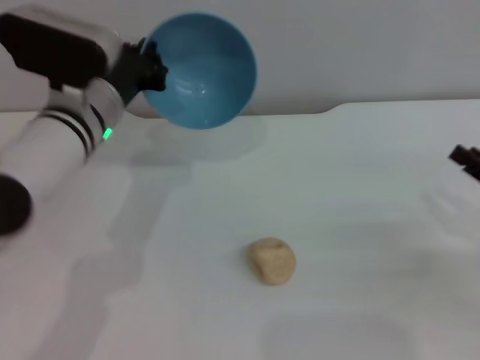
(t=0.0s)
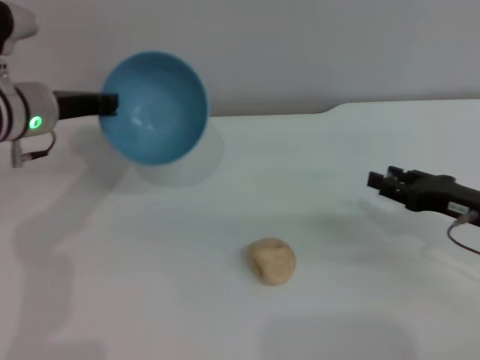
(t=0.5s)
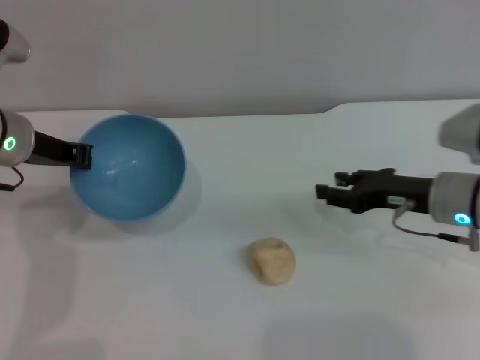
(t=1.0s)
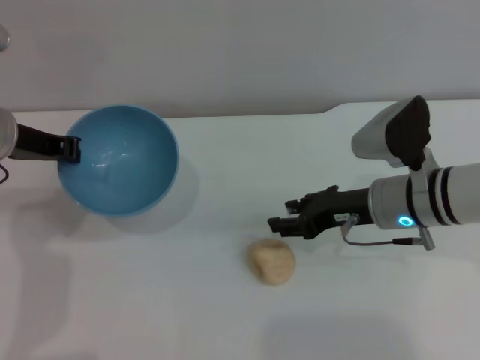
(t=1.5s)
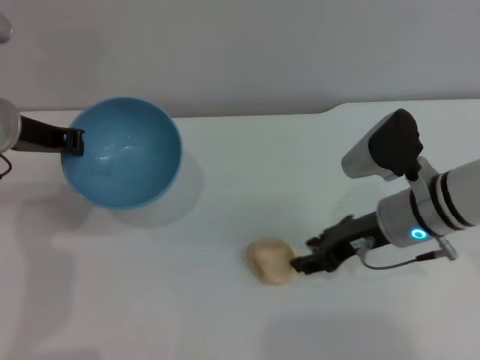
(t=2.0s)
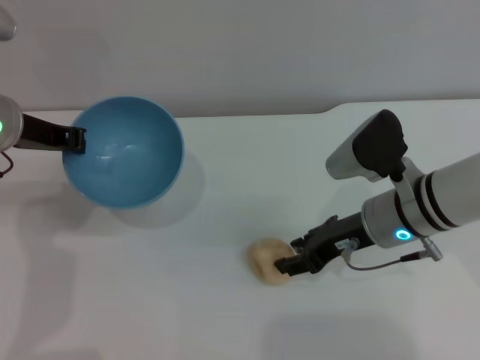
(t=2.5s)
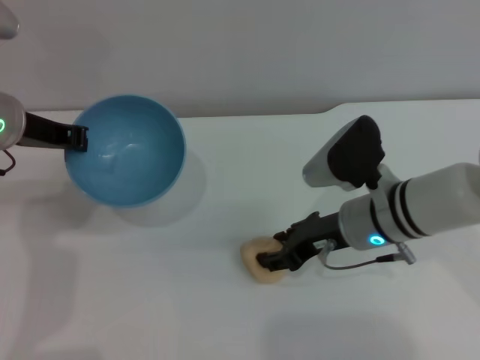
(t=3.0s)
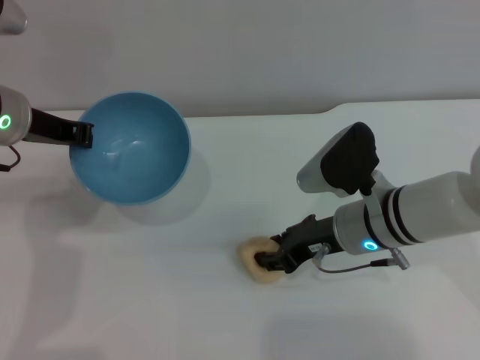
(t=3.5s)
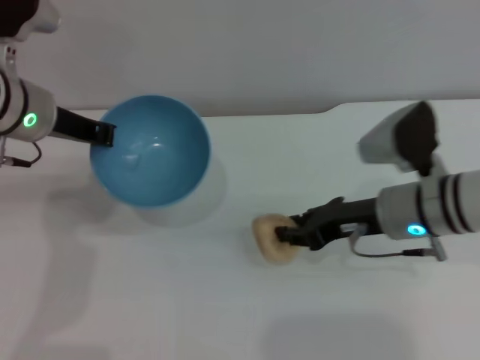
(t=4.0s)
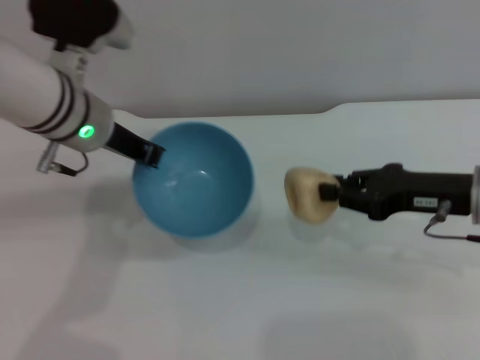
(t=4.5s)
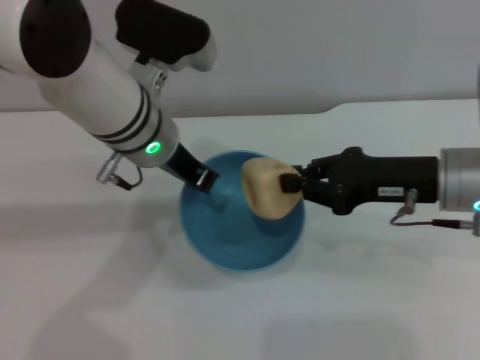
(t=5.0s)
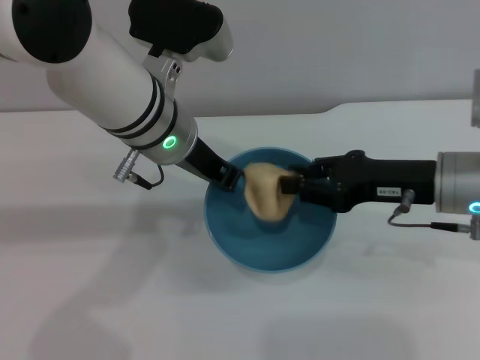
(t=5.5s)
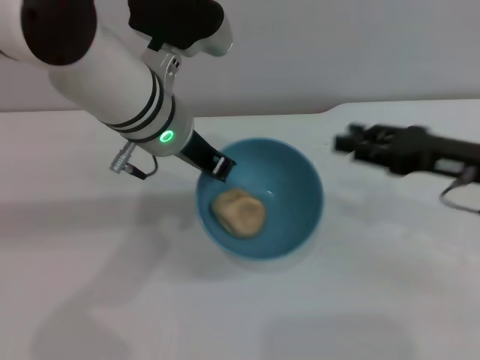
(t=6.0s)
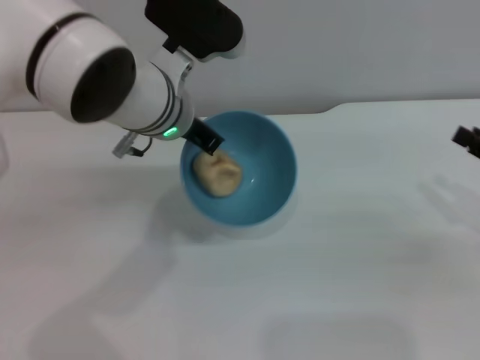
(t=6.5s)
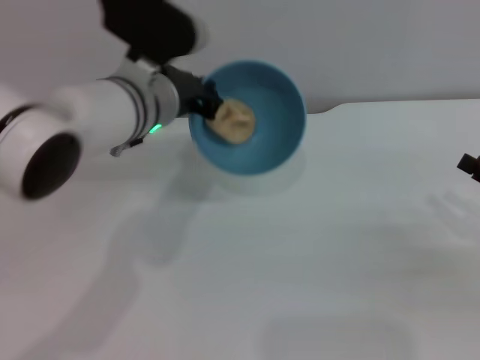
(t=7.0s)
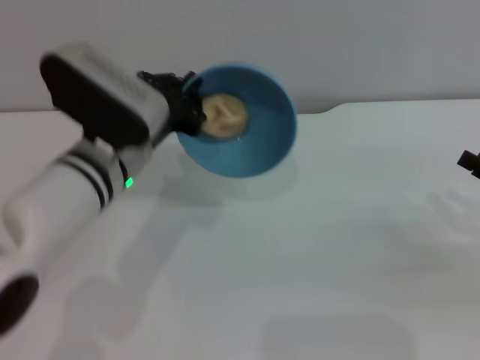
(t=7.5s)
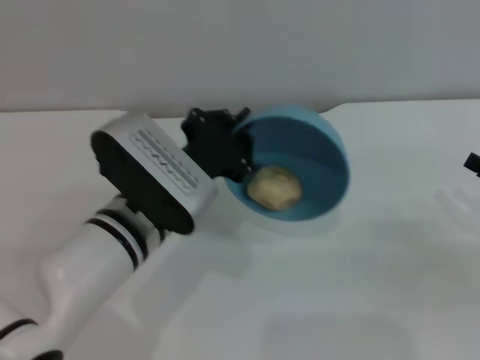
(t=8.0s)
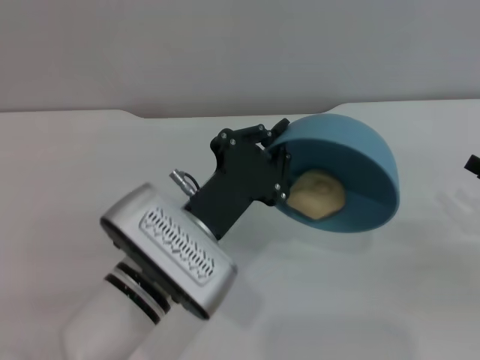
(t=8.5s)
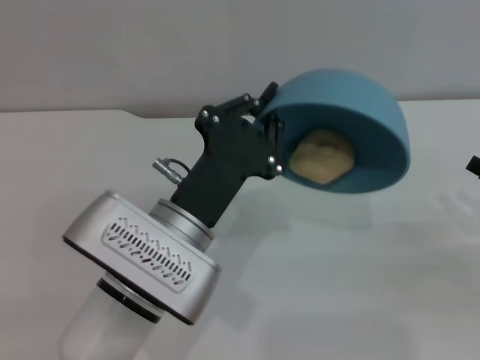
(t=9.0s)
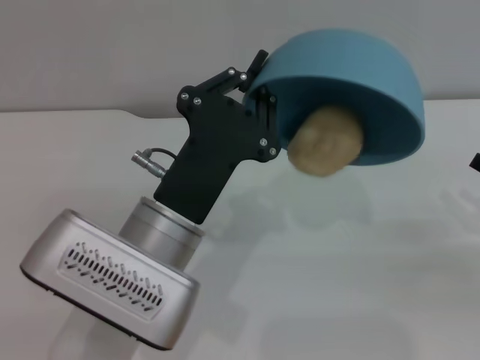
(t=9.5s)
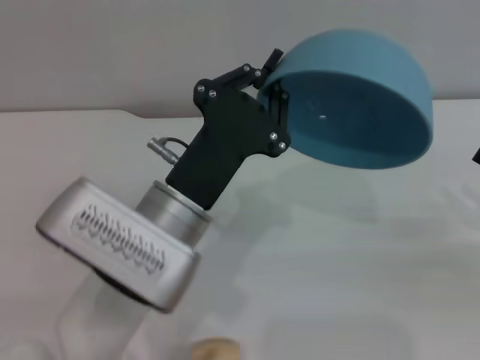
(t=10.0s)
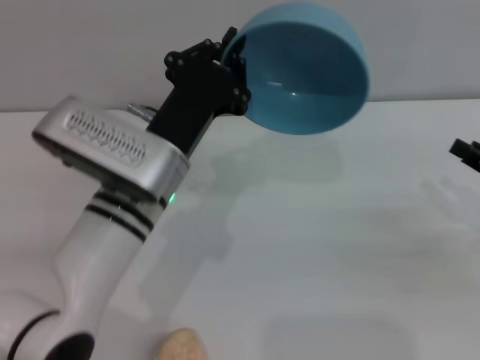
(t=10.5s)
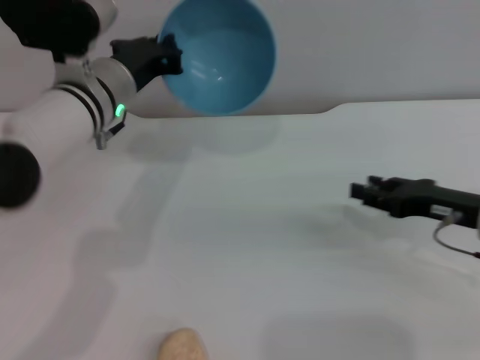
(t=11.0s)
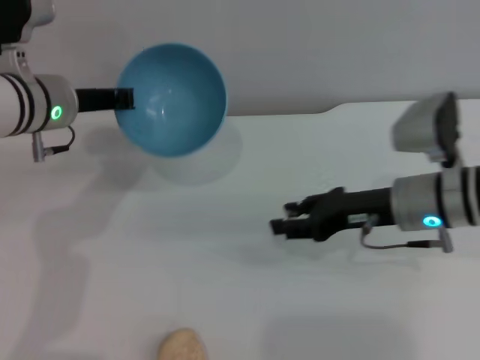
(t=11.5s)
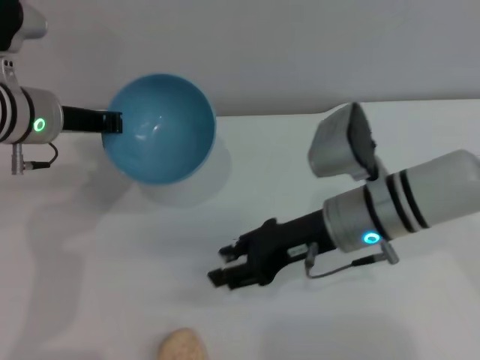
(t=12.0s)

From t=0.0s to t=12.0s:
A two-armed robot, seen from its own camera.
Task of the whole recording: put the egg yolk pastry into the blue bowl and pour it out repeatedly.
Step, from t=0.0s to t=4.5s: Pick up the egg yolk pastry with the right gripper.
Step, from t=5.0s to t=5.5s: Place the egg yolk pastry into the bowl.
Step, from t=6.0s to t=10.0s: Pour the egg yolk pastry out of bowl.
From t=0.0s to t=2.0s: The right gripper heads to the left and forward, covering roughly 20 cm. The left gripper shifts some 10 cm to the left.
From t=2.0s to t=4.0s: There are only small adjustments of the grippers.
From t=4.0s to t=6.0s: The right gripper goes some 10 cm to the right and upward, and closes, then reopens, while the left gripper moves to the right, about 15 cm.
From t=6.0s to t=8.0s: The left gripper goes some 10 cm downward and backward. The right gripper travels to the right, downward and backward by some 15 cm.
From t=10.0s to t=12.0s: The right gripper is displaced to the left by approximately 25 cm. Meanwhile the left gripper is displaced forward and to the left by some 20 cm.

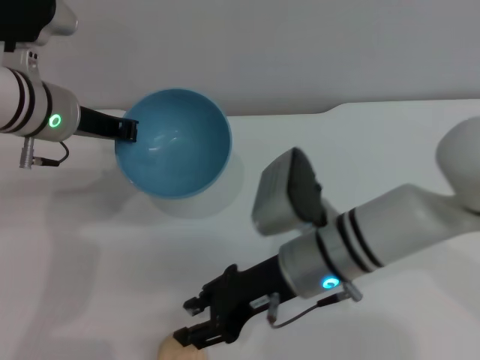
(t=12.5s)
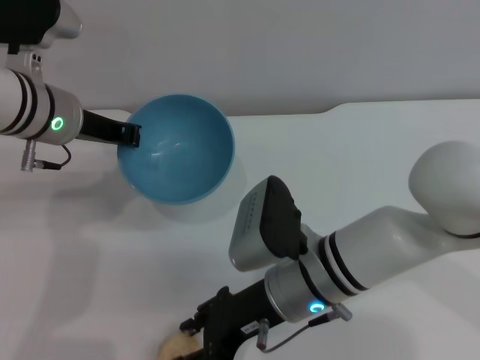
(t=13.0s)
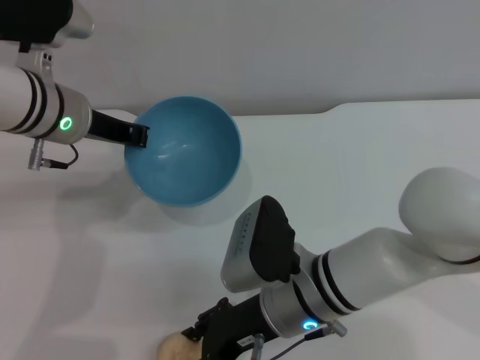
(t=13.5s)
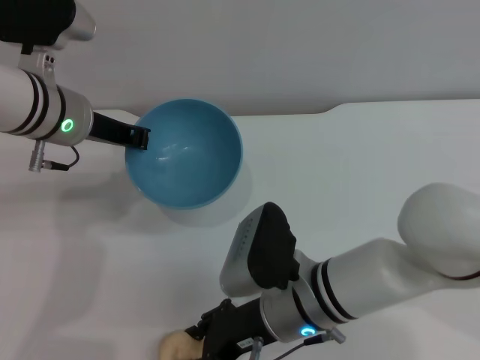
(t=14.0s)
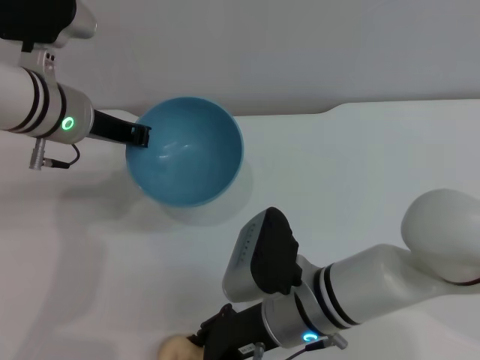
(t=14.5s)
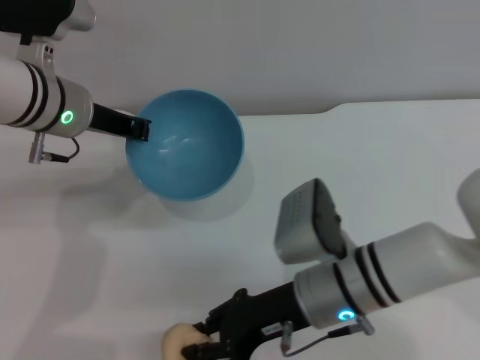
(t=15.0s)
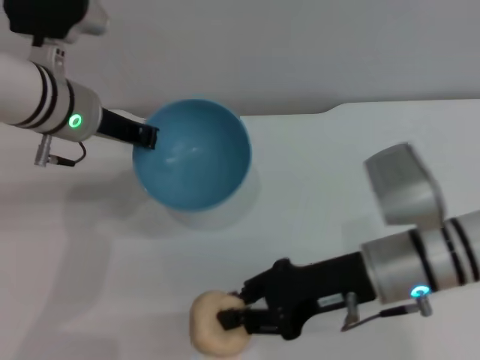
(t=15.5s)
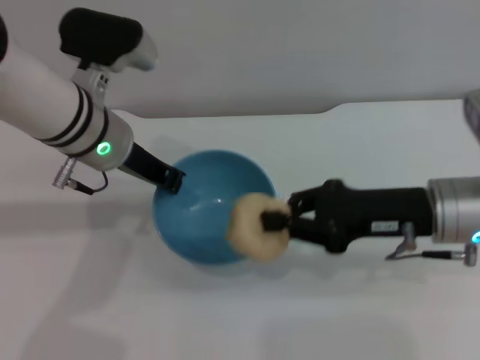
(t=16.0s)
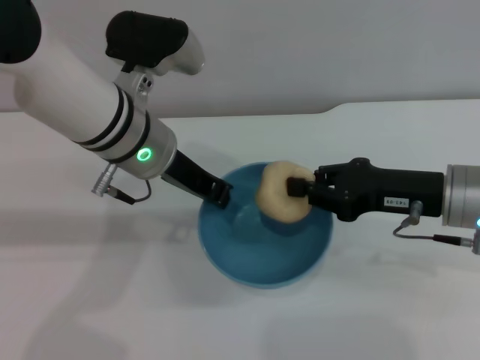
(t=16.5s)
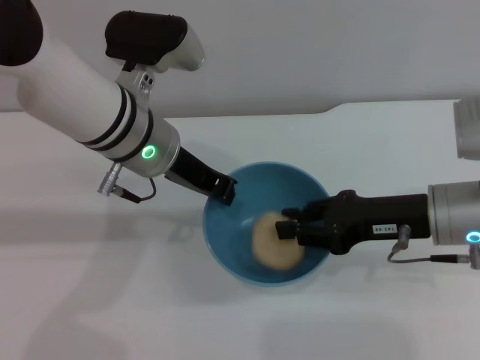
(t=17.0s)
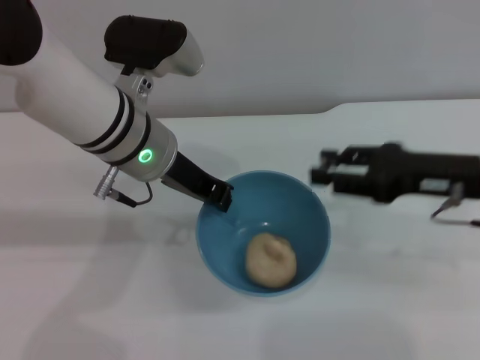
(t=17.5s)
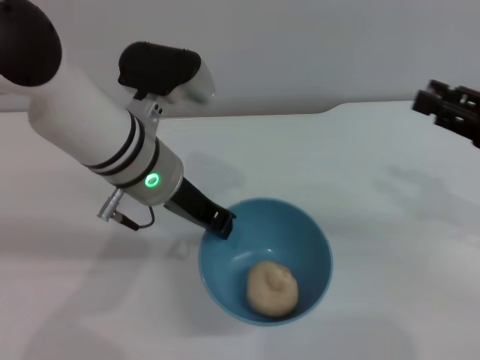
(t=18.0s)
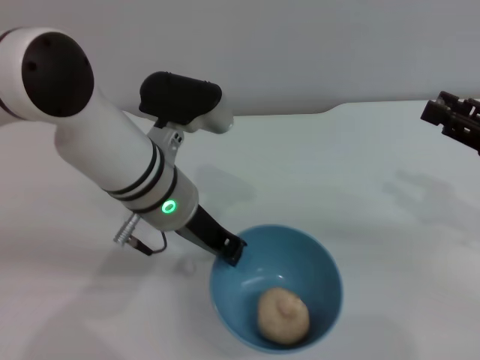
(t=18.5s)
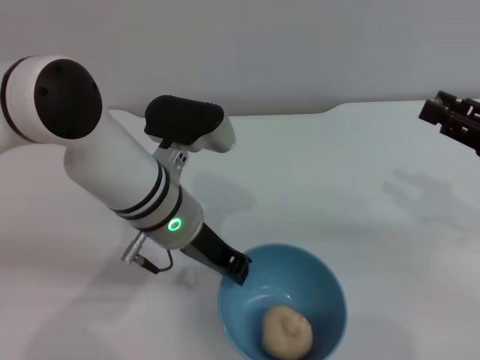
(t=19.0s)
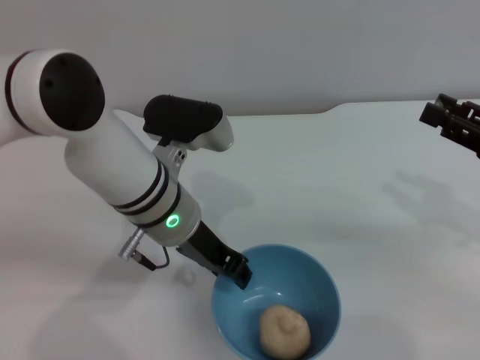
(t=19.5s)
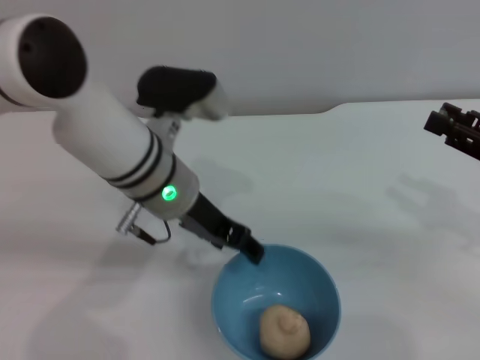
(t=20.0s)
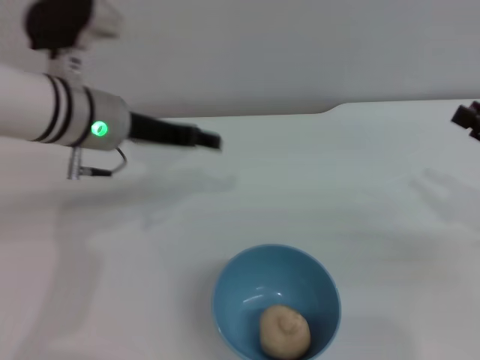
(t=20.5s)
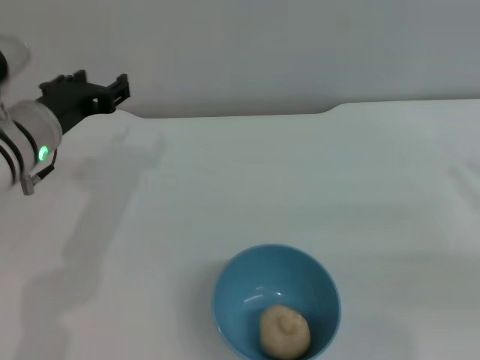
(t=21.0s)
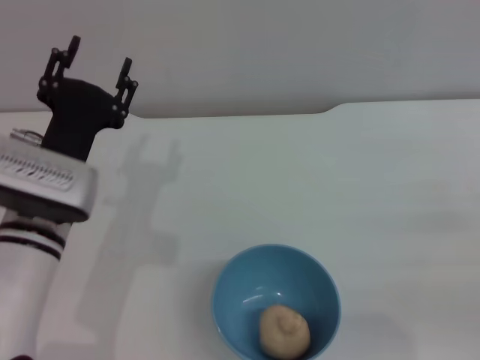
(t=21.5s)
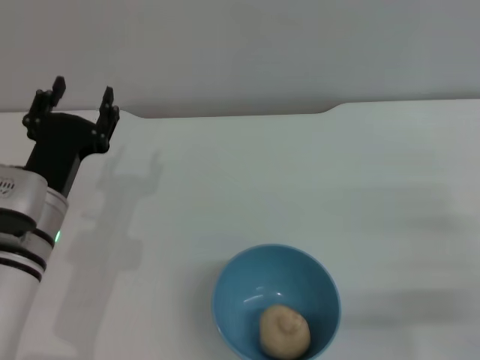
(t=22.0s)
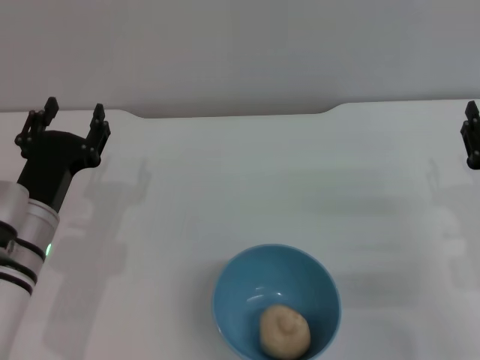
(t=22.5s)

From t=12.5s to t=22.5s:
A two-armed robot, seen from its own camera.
Task of the whole recording: put the egg yolk pastry into the blue bowl and pour it out repeatedly.
Step, from t=12.5s to t=15.5s: Pick up the egg yolk pastry with the right gripper.
Step, from t=16.0s to t=17.5s: Place the egg yolk pastry into the bowl.
Step, from t=18.0s to t=20.0s: Place the bowl on the table.
From t=12.5s to t=14.5s: The right gripper shifts by about 5 cm.
From t=14.5s to t=16.5s: The right gripper moves to the right and upward, about 20 cm, and closes up. The left gripper goes some 10 cm to the right.
From t=16.5s to t=18.5s: The right gripper heads to the right, covering some 10 cm, and opens up.
From t=18.5s to t=20.5s: The left gripper shifts roughly 5 cm to the left, and opens up.
From t=20.5s to t=22.5s: The right gripper goes roughly 10 cm downward and to the left. Meanwhile the left gripper is displaced downward, backward and to the left by roughly 15 cm.
